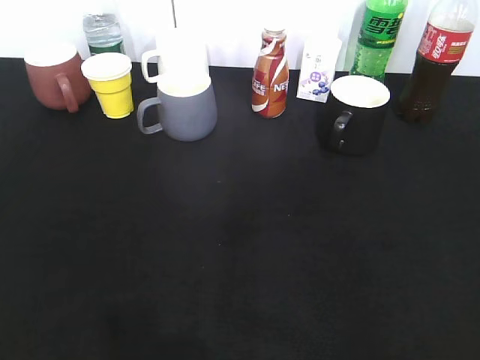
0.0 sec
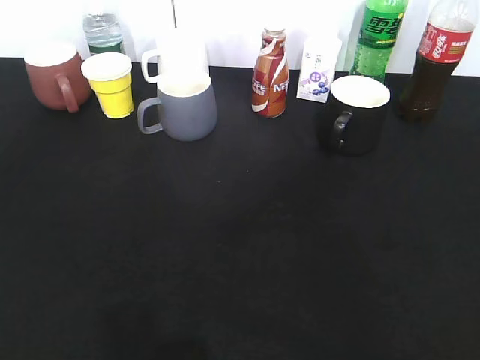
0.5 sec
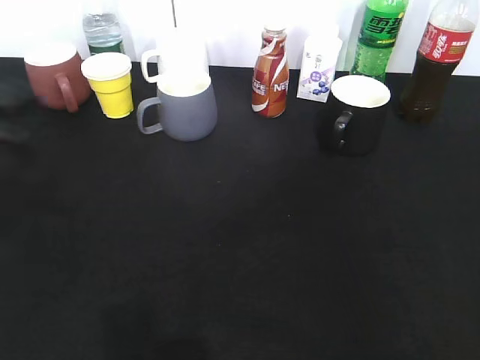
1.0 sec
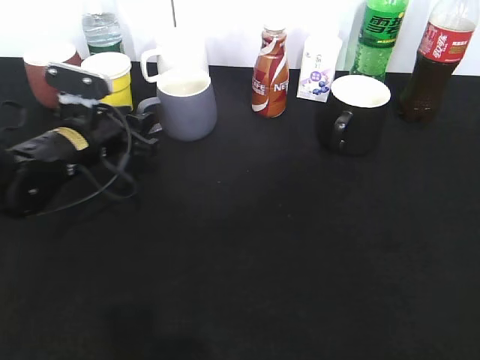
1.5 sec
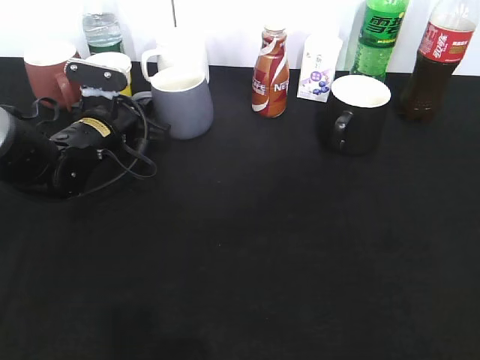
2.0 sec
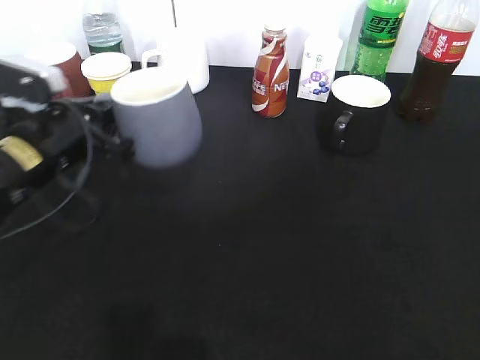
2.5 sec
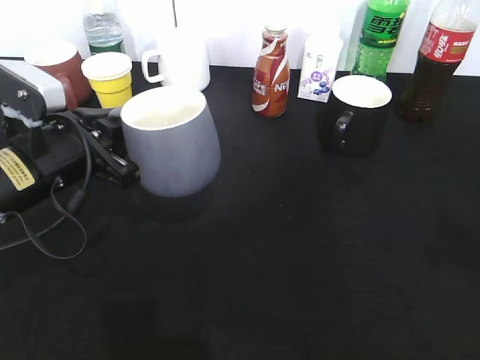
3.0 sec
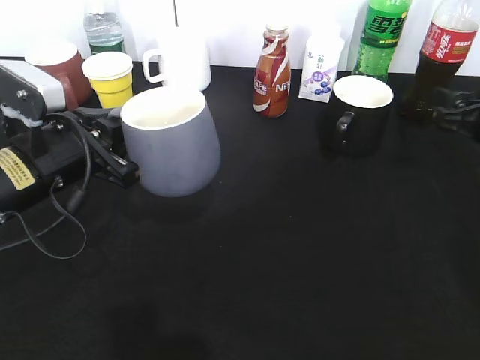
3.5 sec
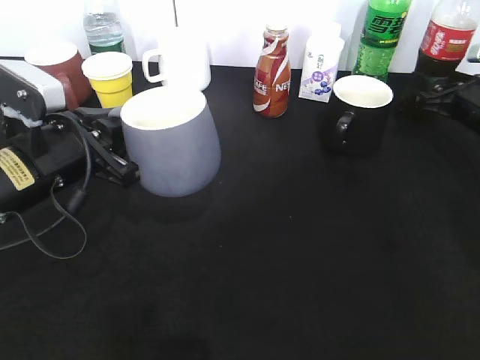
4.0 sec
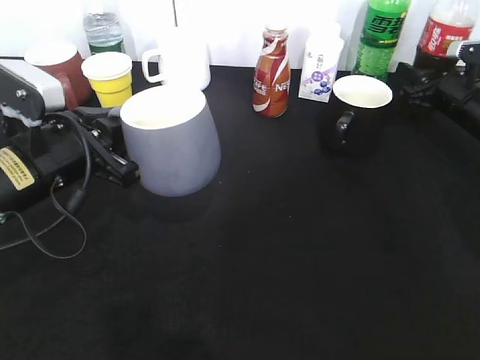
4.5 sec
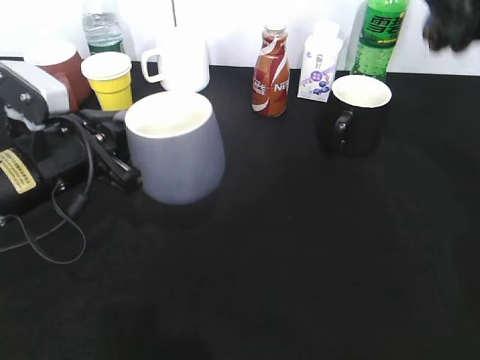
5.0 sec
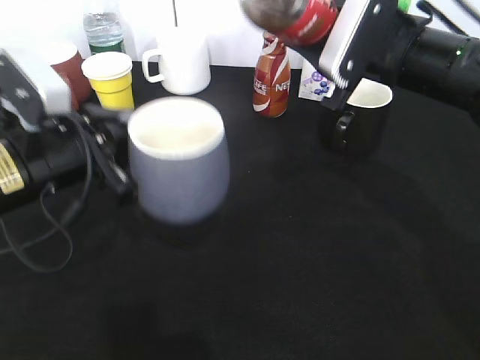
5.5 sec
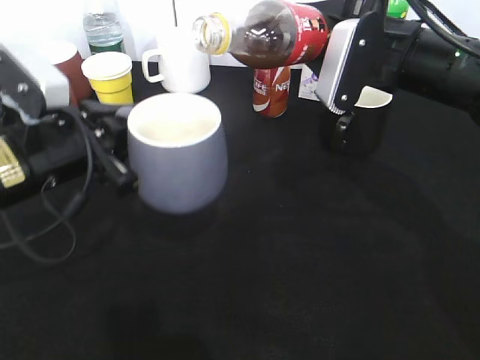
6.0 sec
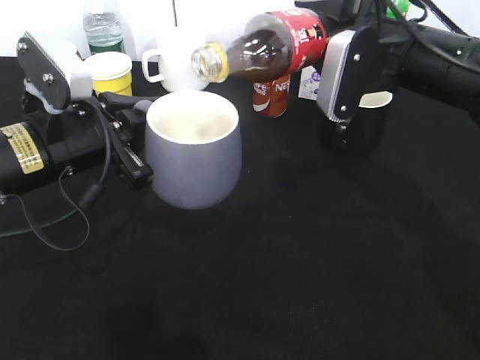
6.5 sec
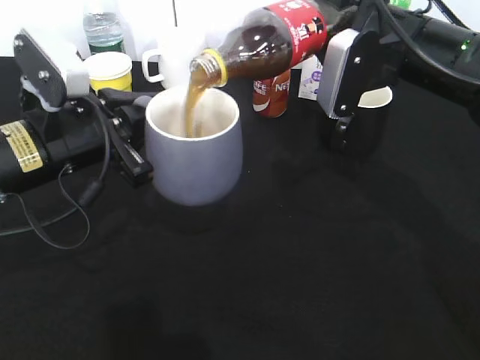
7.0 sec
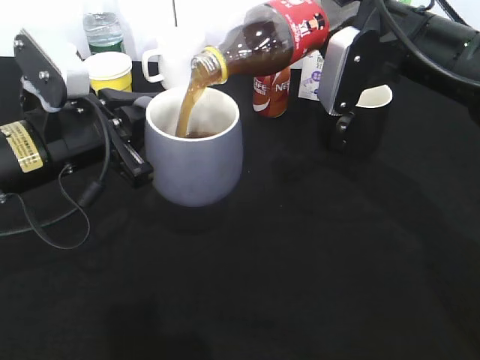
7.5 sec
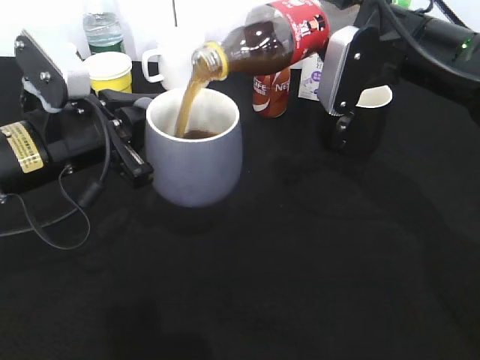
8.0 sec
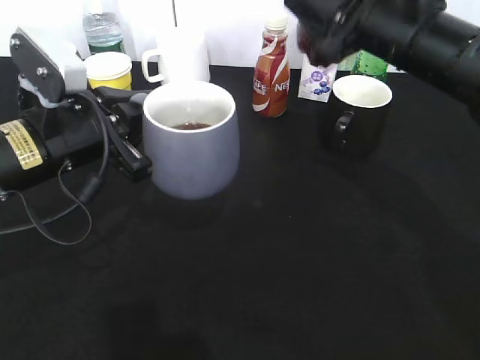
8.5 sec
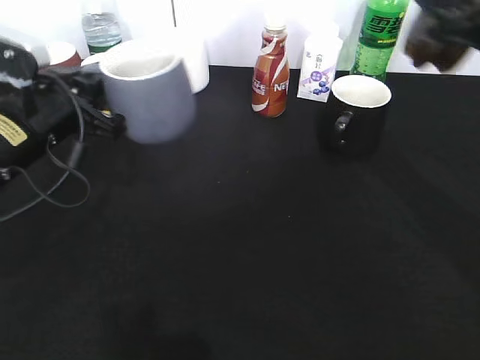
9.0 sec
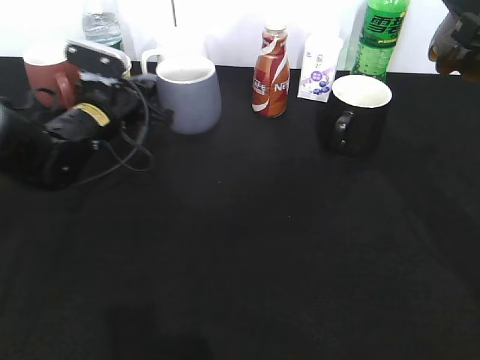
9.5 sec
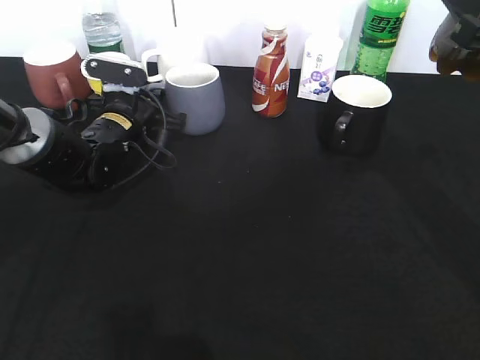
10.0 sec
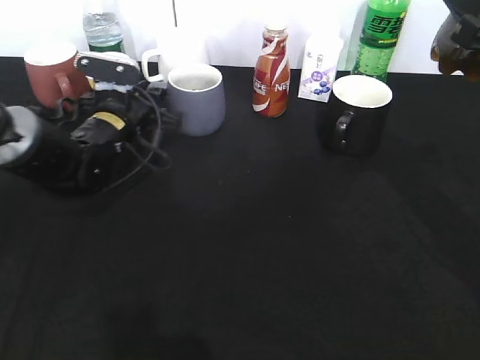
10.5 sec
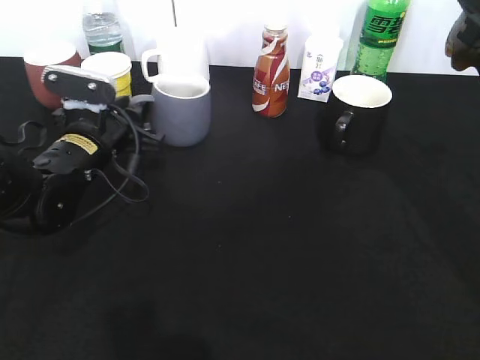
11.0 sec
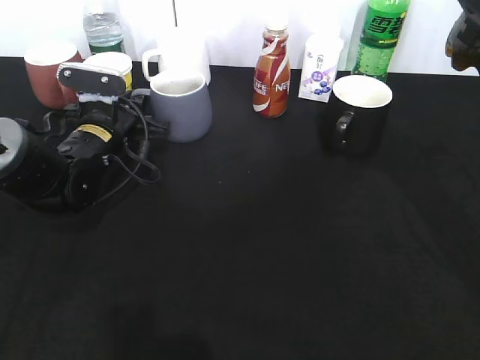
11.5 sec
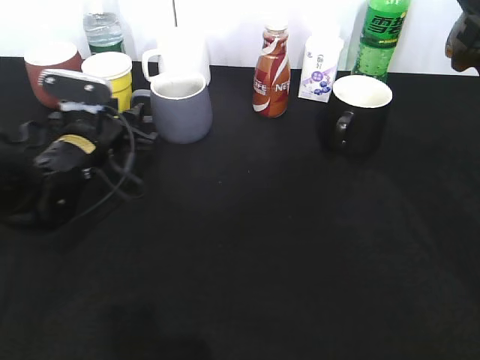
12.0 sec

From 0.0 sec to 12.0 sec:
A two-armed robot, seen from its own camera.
Step, from 0.0 sec to 1.5 sec: Grasp the grey cup with left gripper.
Step, from 2.0 sec to 2.5 sec: Lift the grey cup with left gripper.
Step, from 3.0 sec to 4.5 sec: Grasp the bottle with cola with right gripper.
Step, from 5.0 sec to 7.5 sec: Pour the cola from bottle to cup with right gripper.
From 0.0 sec to 2.0 sec: The left gripper goes some 40 cm forward and downward, and closes.
From 2.0 sec to 4.0 sec: The right gripper is displaced forward by some 40 cm, while the left gripper is displaced backward and upward by roughly 15 cm.
From 4.0 sec to 6.0 sec: The right gripper goes roughly 20 cm to the left, upward and backward, and closes up.
From 8.0 sec to 10.0 sec: The right gripper goes roughly 10 cm to the right and backward. Meanwhile the left gripper travels forward and downward by some 20 cm.
From 10.0 sec to 12.0 sec: The left gripper heads backward, covering some 5 cm, and opens up.

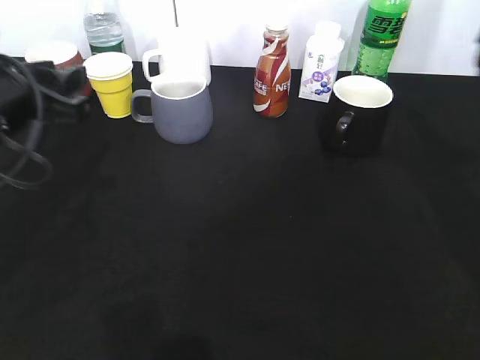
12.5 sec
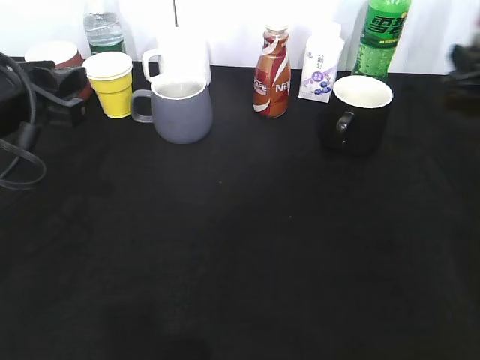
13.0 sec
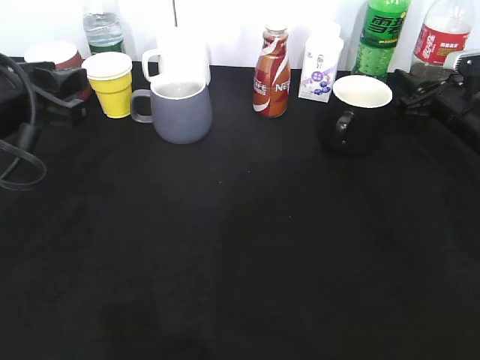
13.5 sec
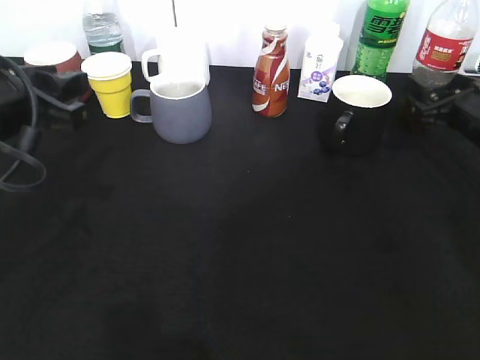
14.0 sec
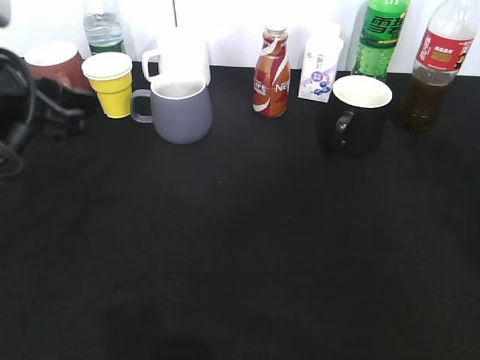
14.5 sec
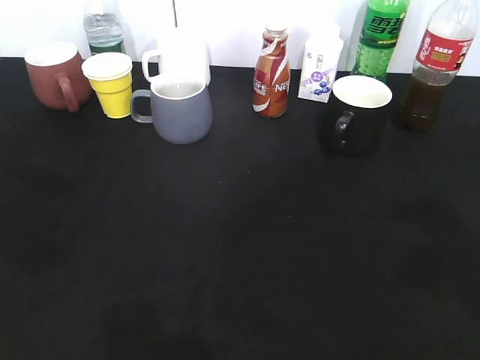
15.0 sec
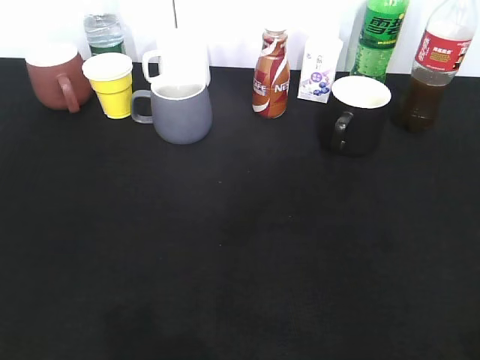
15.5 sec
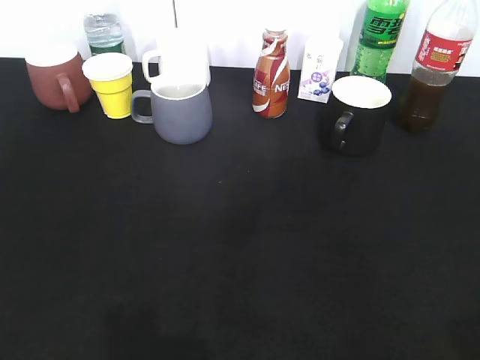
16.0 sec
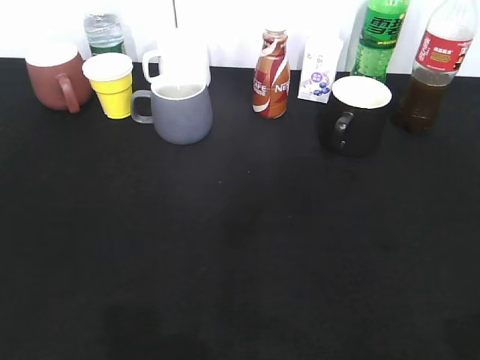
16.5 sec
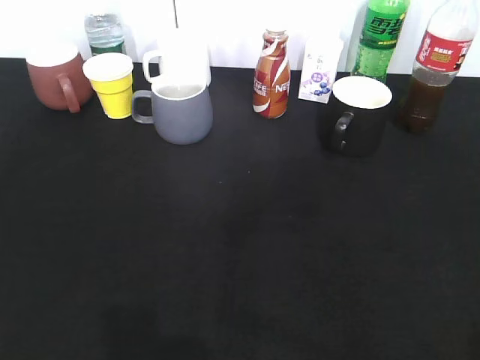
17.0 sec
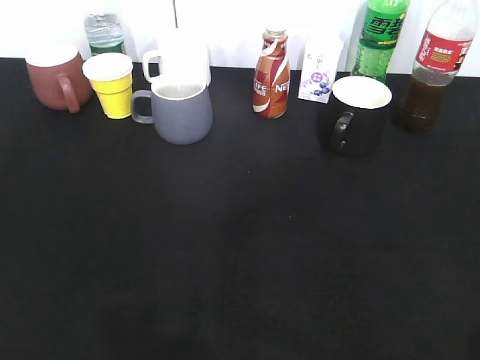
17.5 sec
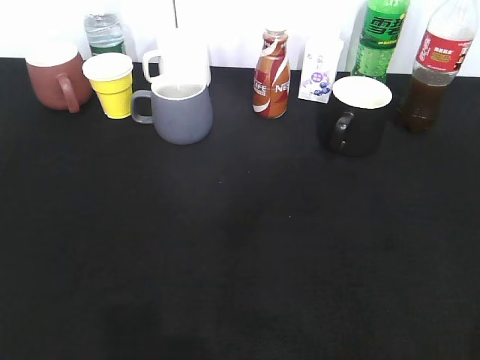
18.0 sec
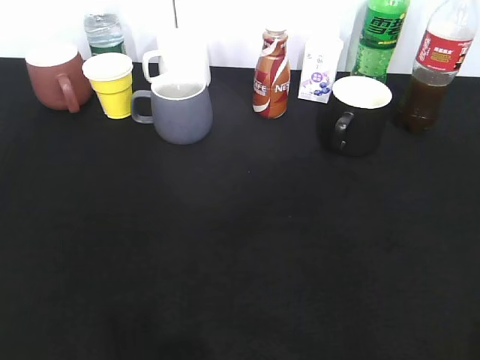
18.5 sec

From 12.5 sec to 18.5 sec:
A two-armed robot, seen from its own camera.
Step, from 12.5 sec to 14.0 sec: Place the cola bottle on the table with right gripper.
From 12.5 sec to 14.5 sec: The right gripper travels downward and back again, some 15 cm each way, and opens its fingers.
From 14.5 sec to 16.5 sec: The right gripper heads backward, covering some 25 cm; the left gripper is displaced backward and to the left by roughly 25 cm.
